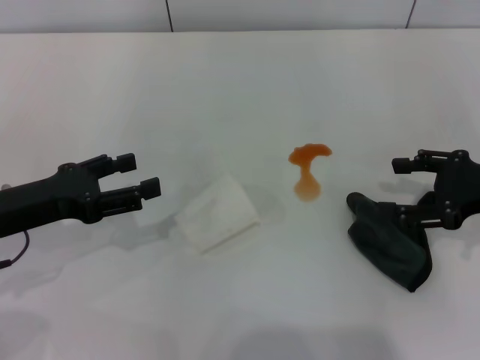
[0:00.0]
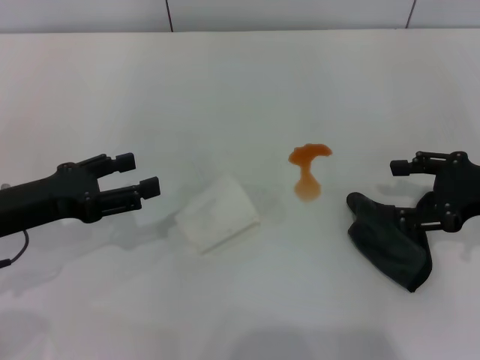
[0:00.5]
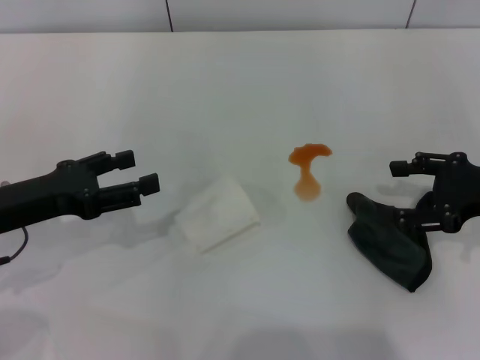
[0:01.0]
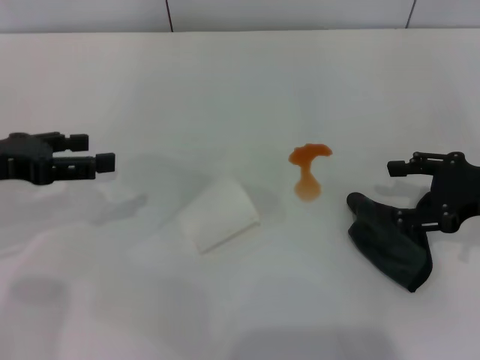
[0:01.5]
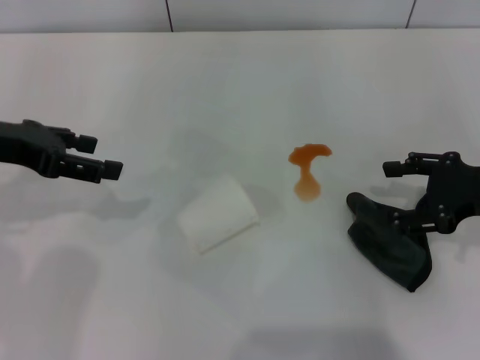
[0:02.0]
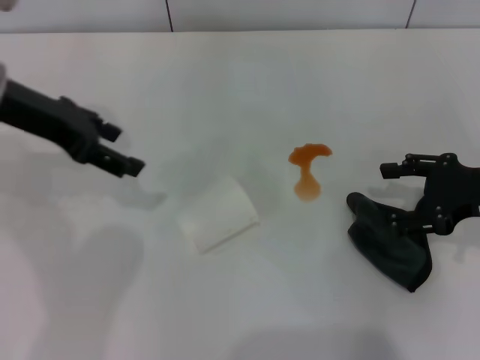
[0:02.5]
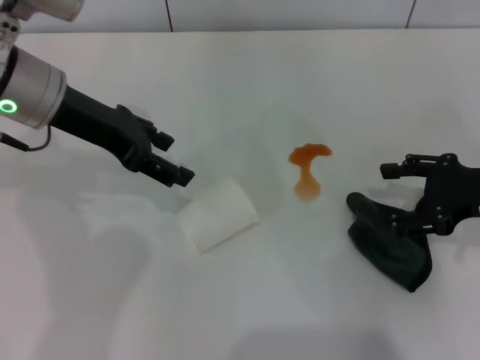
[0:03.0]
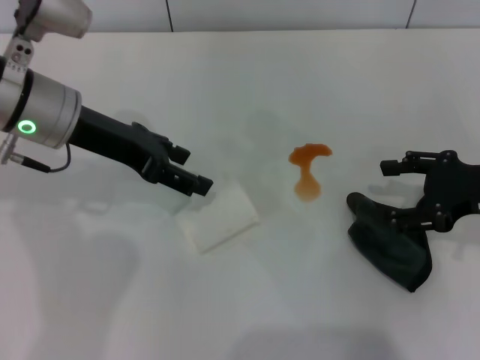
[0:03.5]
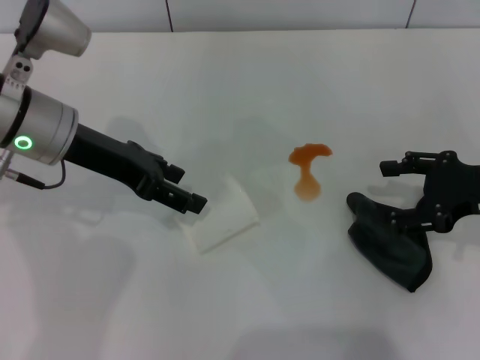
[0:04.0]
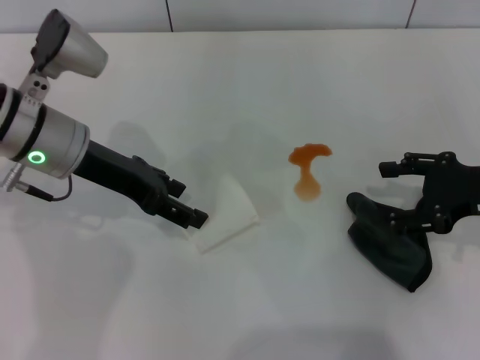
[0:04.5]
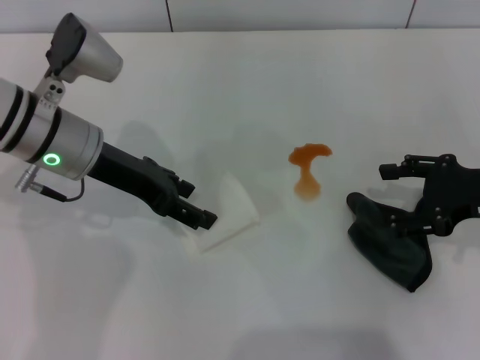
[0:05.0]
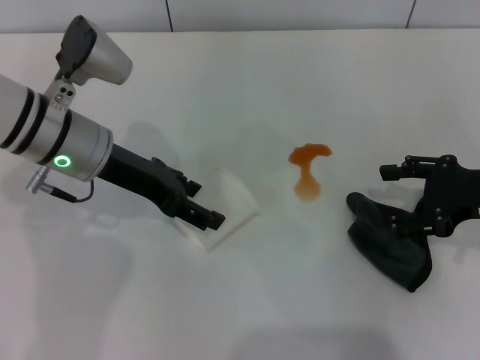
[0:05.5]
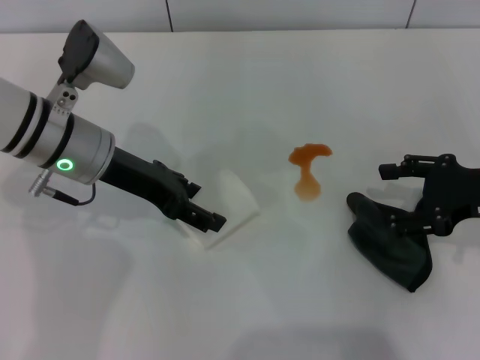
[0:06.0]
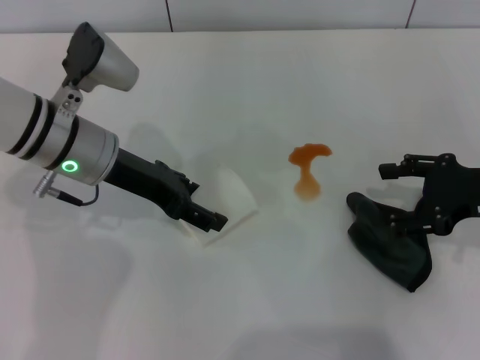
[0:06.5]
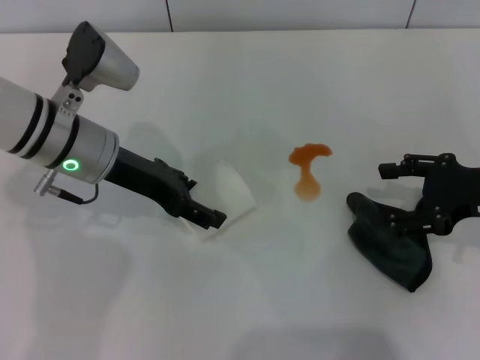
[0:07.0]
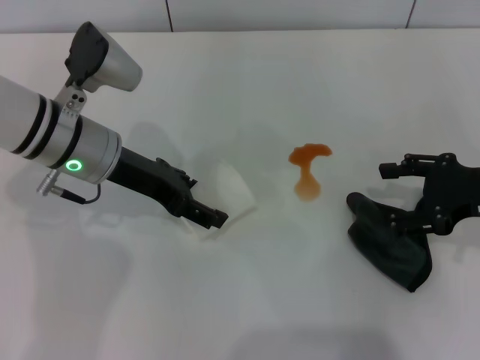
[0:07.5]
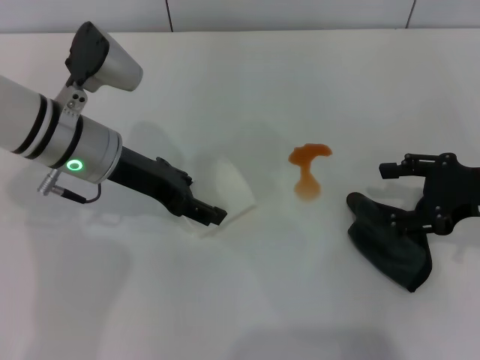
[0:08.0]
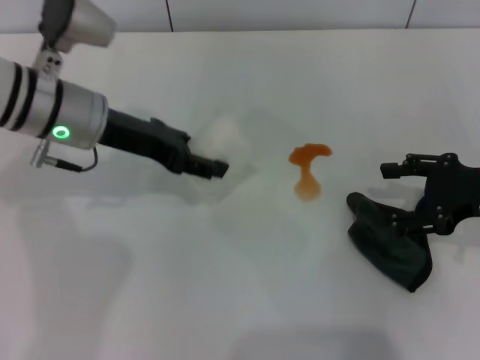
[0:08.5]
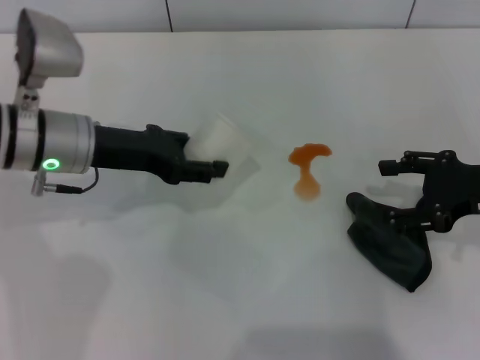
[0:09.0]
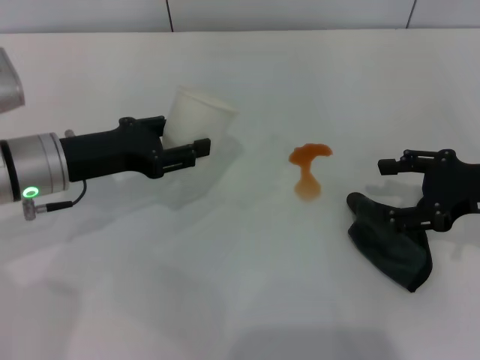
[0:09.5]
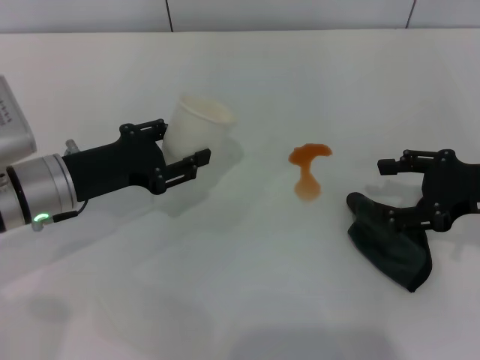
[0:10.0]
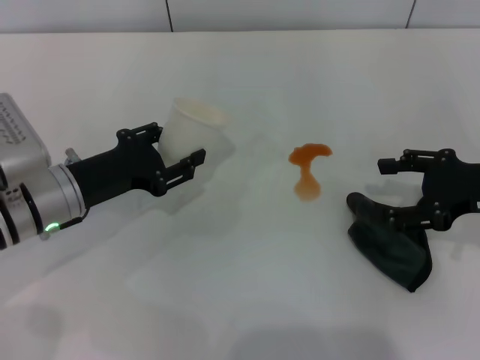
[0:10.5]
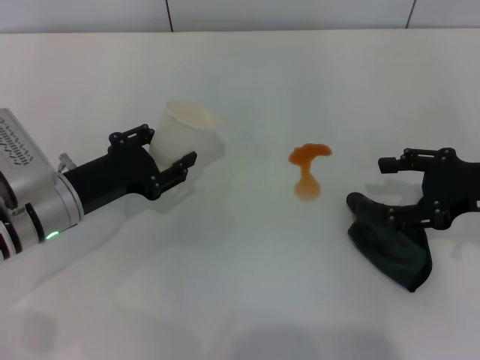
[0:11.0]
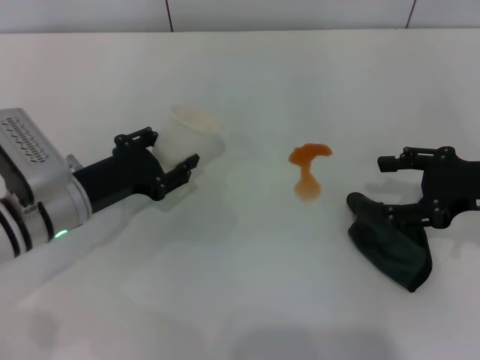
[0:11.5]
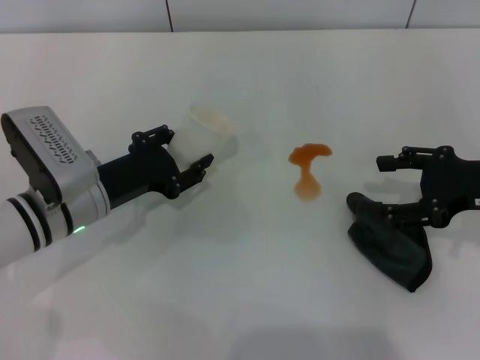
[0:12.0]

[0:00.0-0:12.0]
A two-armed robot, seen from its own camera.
Step, 0:00.0 to 0:08.0: Grasp the paper cup with the left gripper.
0:00.0 to 0:02.0: The left gripper moves upward and forward, about 10 cm.
0:02.0 to 0:04.0: The left gripper goes approximately 10 cm to the right.
0:04.0 to 0:06.0: The grippers move only a little.
0:06.0 to 0:08.0: Both grippers stay put.
0:08.0 to 0:10.0: The left gripper moves backward and to the left, approximately 5 cm, and closes up.
0:10.0 to 0:12.0: There are only small adjustments of the grippers.

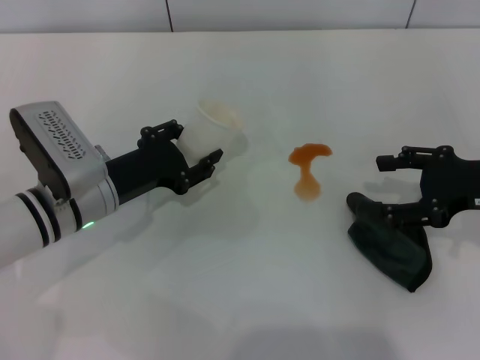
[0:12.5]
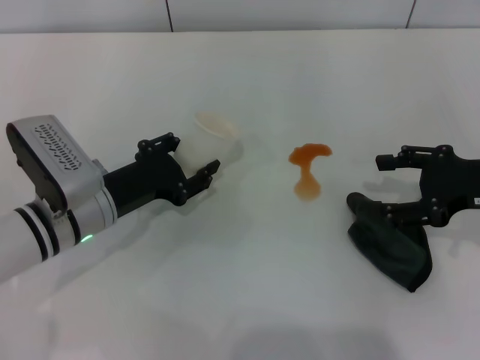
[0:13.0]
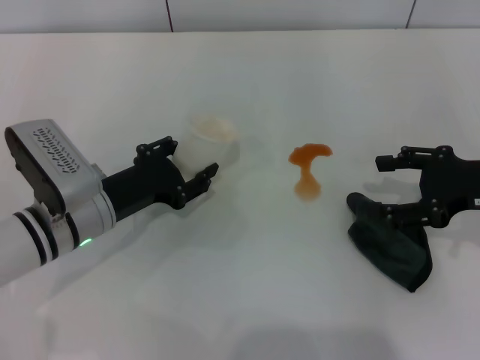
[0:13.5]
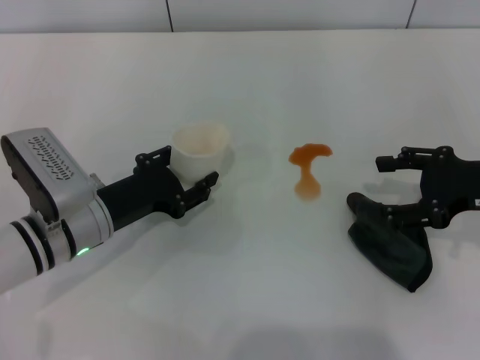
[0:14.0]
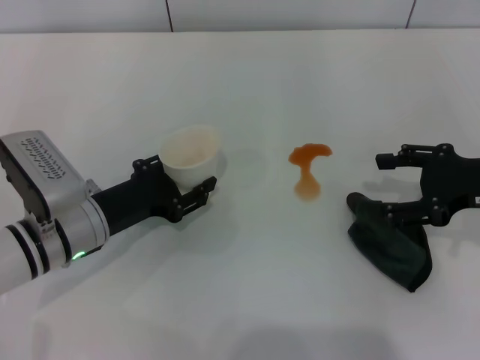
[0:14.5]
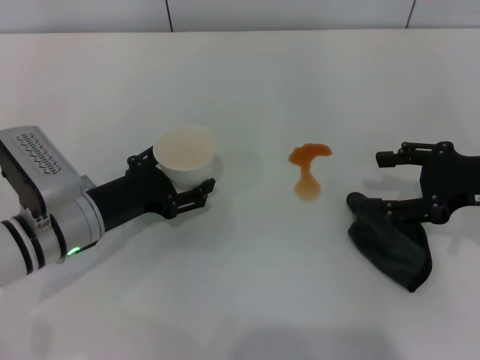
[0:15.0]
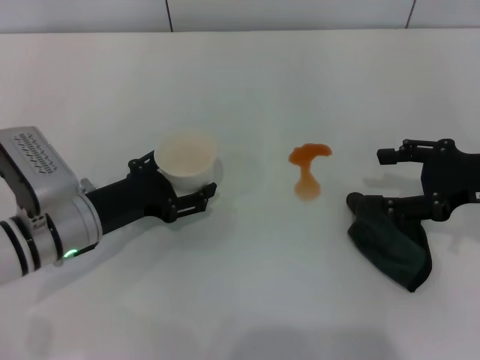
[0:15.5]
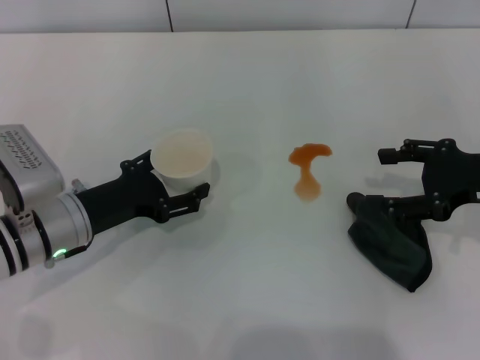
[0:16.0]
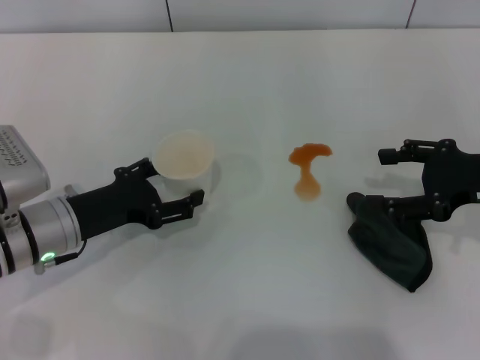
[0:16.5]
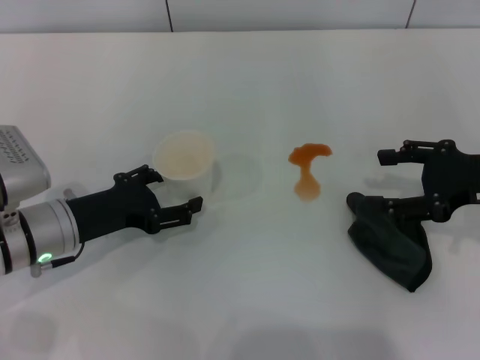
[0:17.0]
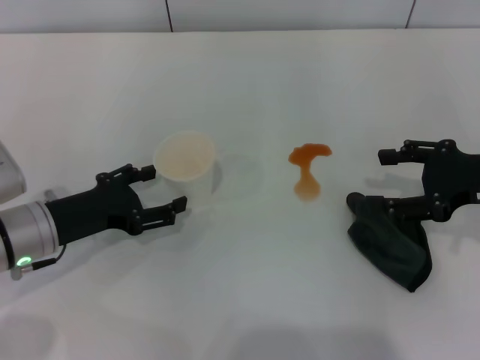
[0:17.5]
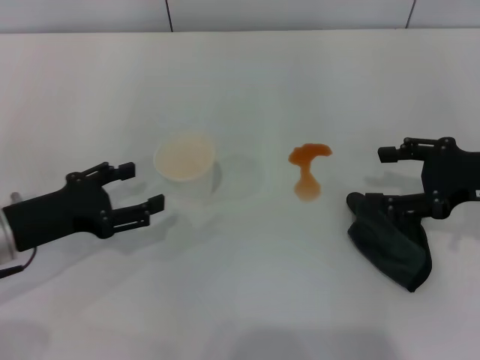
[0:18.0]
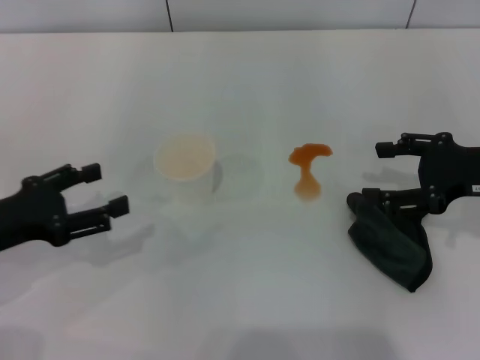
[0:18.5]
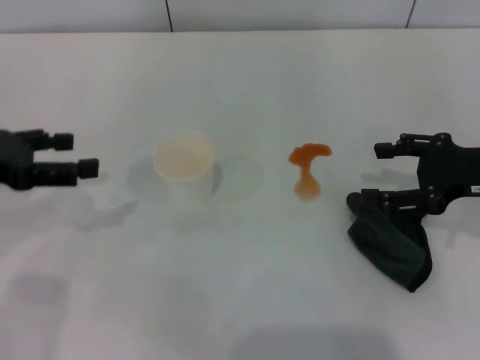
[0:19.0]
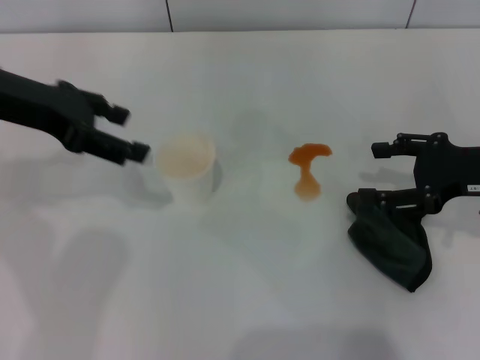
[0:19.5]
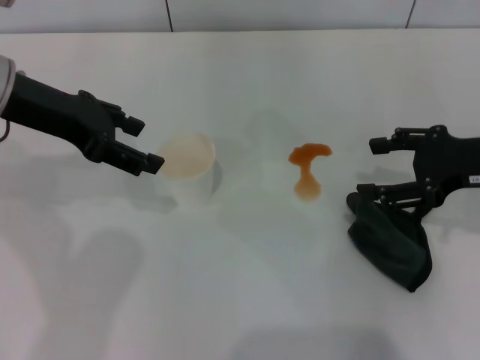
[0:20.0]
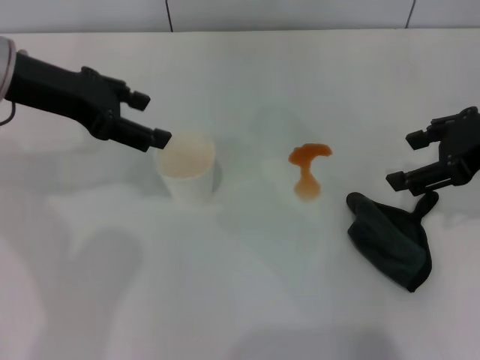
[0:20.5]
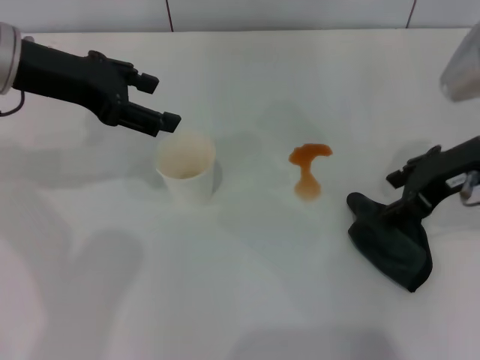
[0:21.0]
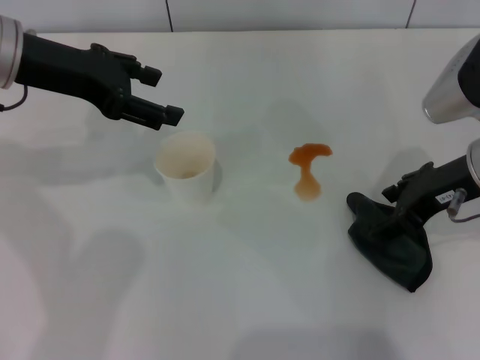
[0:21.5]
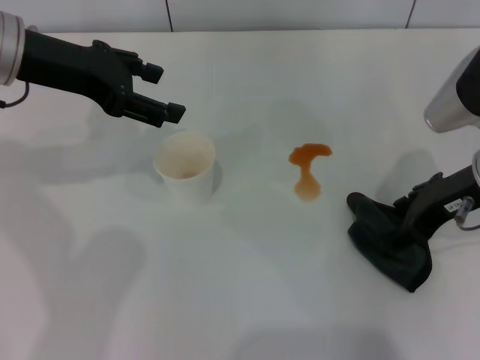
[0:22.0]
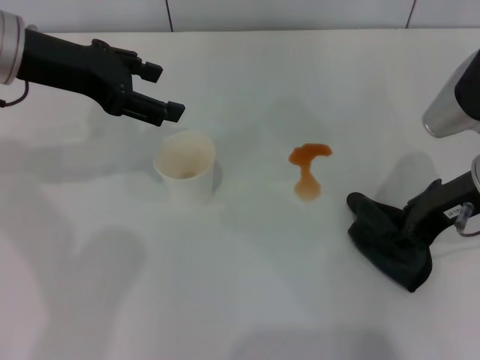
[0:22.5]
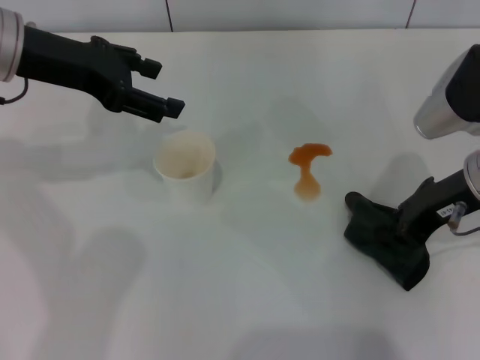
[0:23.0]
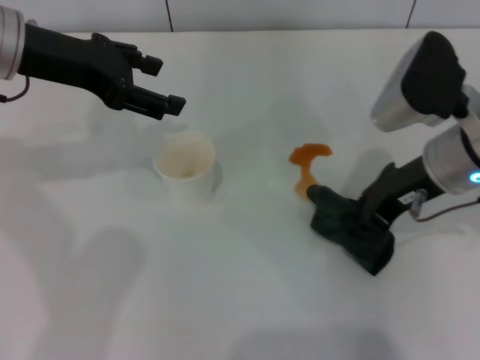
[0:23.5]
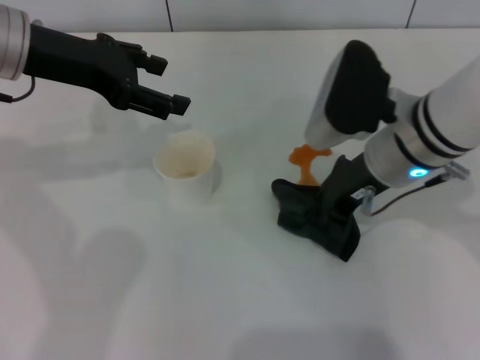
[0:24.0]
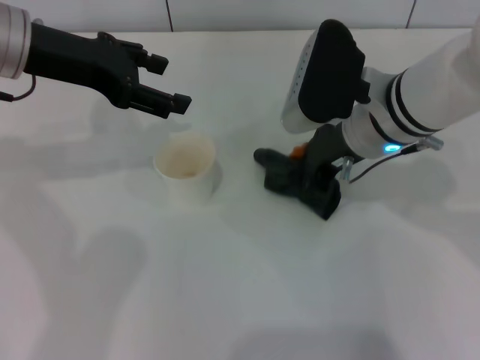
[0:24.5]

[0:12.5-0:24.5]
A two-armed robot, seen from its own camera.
Step, 0:12.5 to 0:17.5: Stand the paper cup upright with the left gripper.
Step, 0:18.0 to 0:23.0: Grasp the rag with the right gripper.
0:12.5 to 0:14.5: The grippers move only a little.
0:14.5 to 0:16.5: The left gripper opens.
0:16.5 to 0:18.5: The left gripper is displaced to the left and upward by approximately 10 cm.
0:18.5 to 0:20.5: The left gripper moves forward, upward and to the right, some 20 cm. The right gripper shifts some 10 cm upward.
0:20.5 to 0:22.5: The right gripper travels downward by some 5 cm.
0:22.5 to 0:24.5: The right gripper heads to the left, covering approximately 10 cm, and closes.

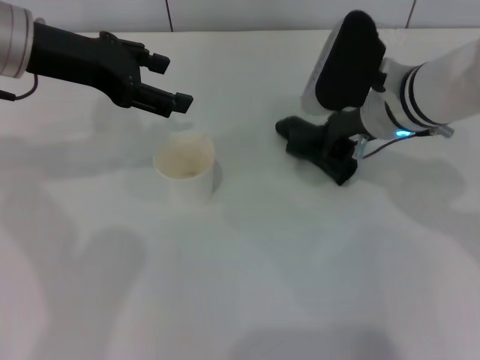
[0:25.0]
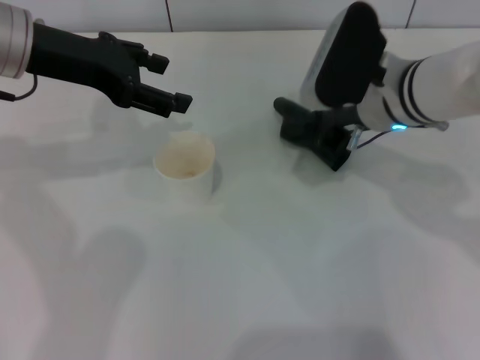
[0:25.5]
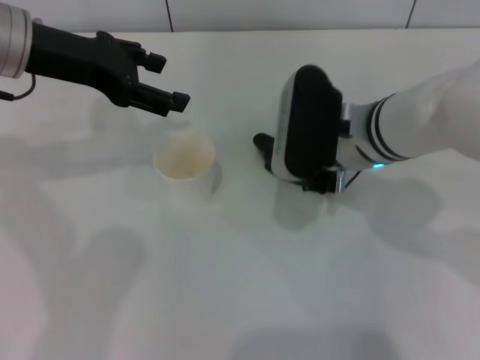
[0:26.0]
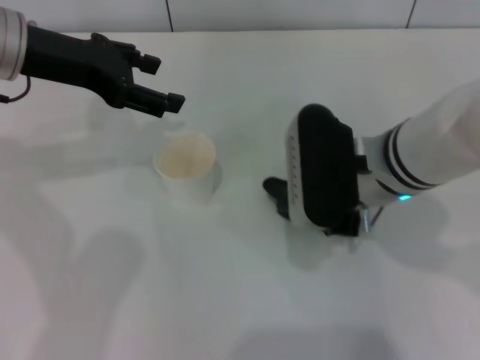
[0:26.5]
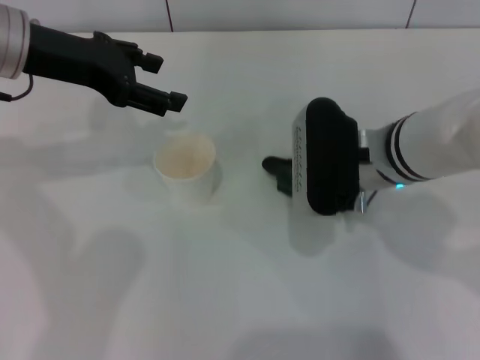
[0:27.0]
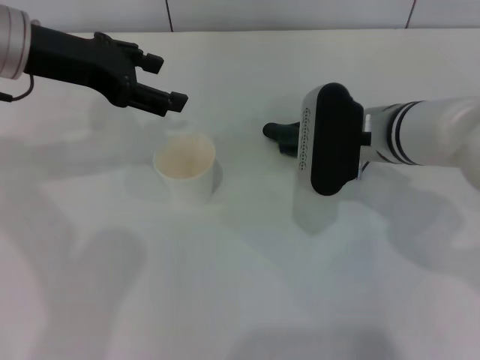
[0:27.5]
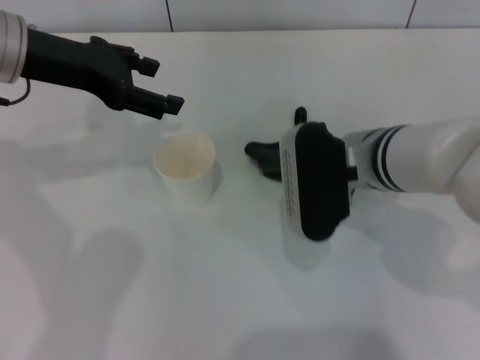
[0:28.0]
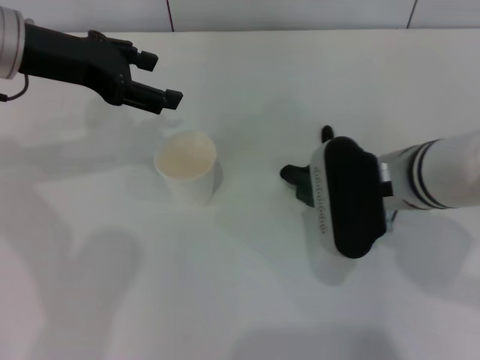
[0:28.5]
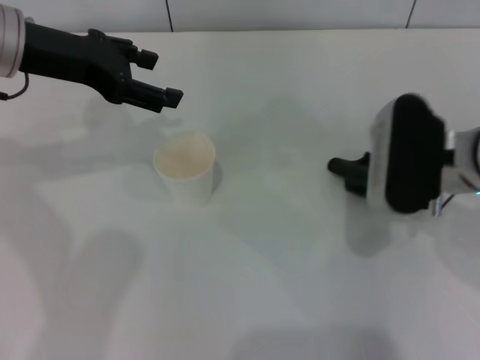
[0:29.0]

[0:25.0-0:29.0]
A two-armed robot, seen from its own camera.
0:25.0 to 0:27.0: The right gripper goes approximately 5 cm backward.
0:27.0 to 0:29.0: The right gripper travels to the right by about 5 cm.
